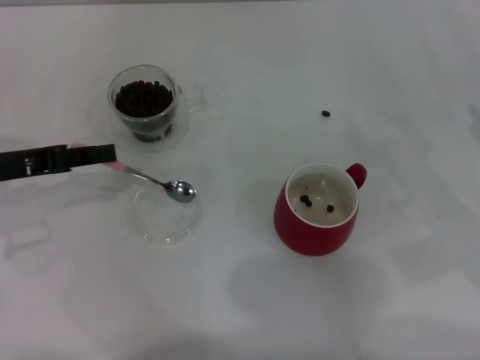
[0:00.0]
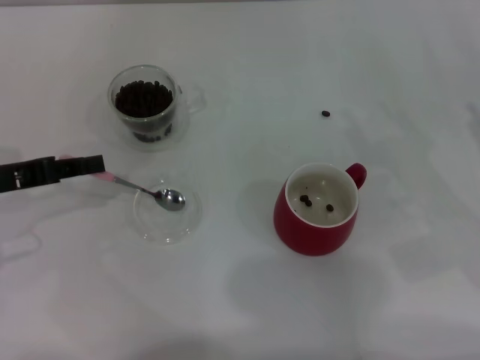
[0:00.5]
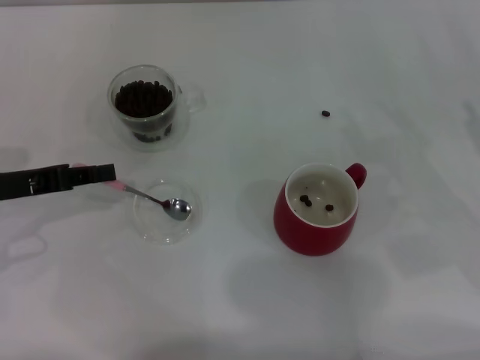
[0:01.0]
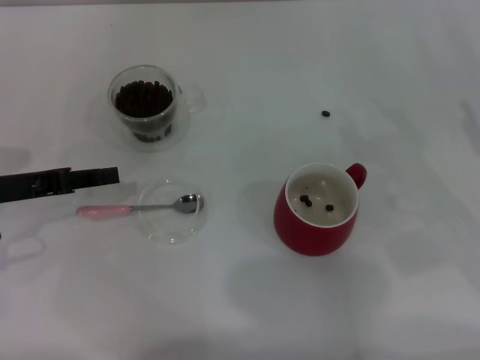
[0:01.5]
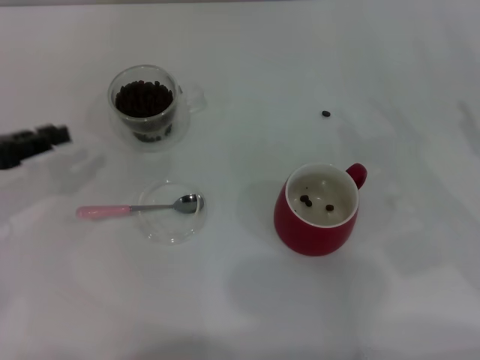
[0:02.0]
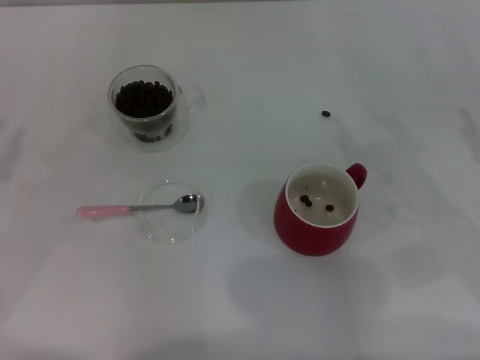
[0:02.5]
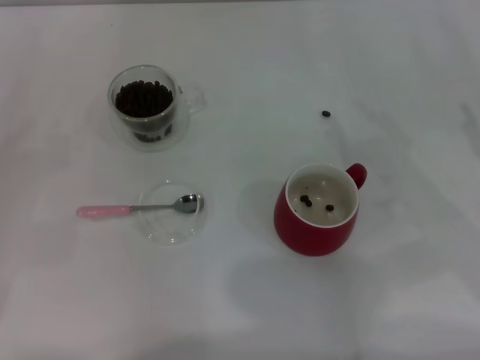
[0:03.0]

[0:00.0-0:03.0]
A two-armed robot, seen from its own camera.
Task of the whole recording: Use a pink spoon to take out the coffee beans from the glass and pour them into the red cup.
0:00.0 to 0:01.5: The grippers make only small movements.
0:01.5 to 0:03.0: The left gripper travels to the left and backward by some 10 cm.

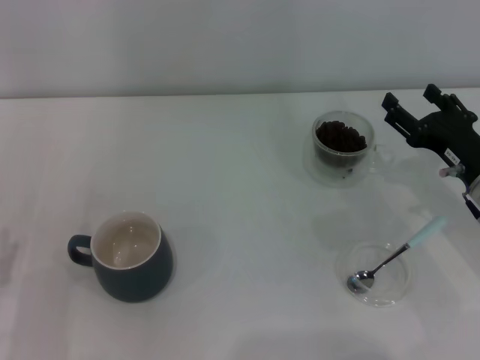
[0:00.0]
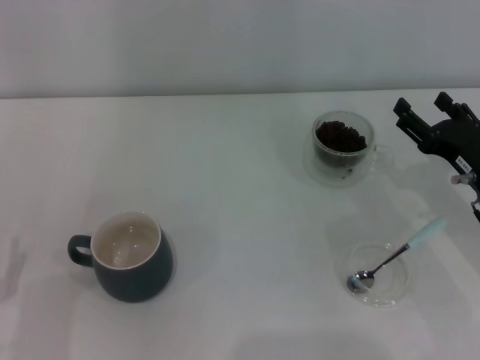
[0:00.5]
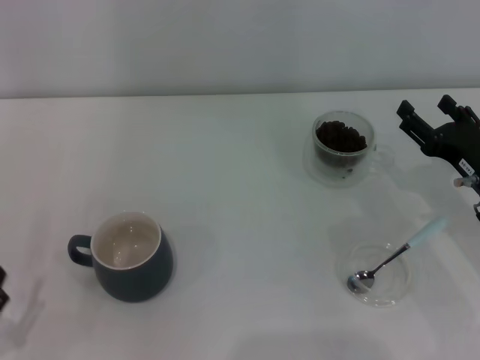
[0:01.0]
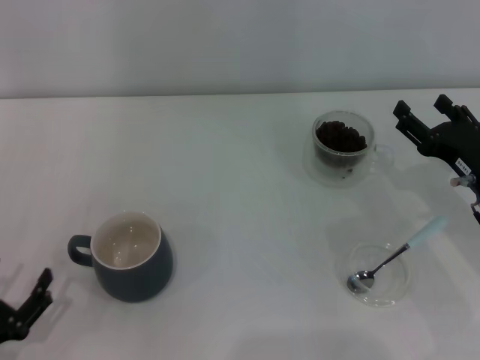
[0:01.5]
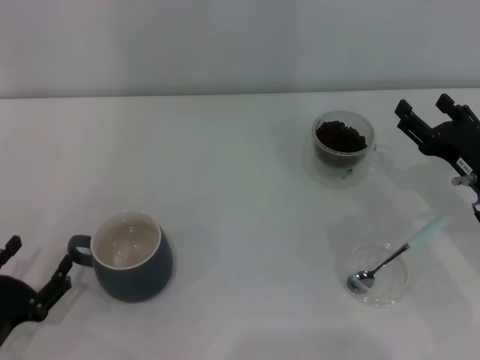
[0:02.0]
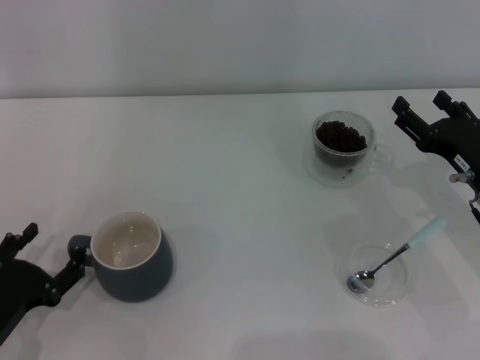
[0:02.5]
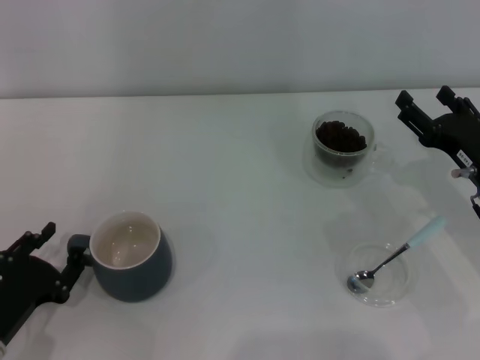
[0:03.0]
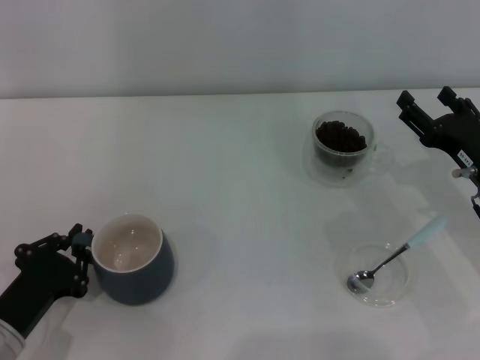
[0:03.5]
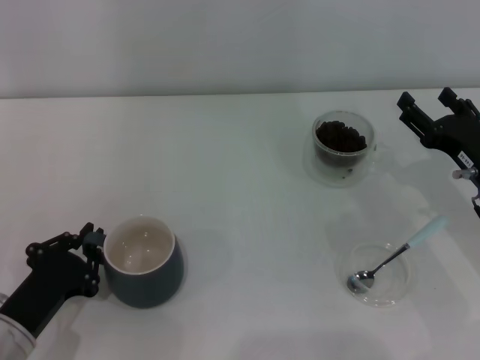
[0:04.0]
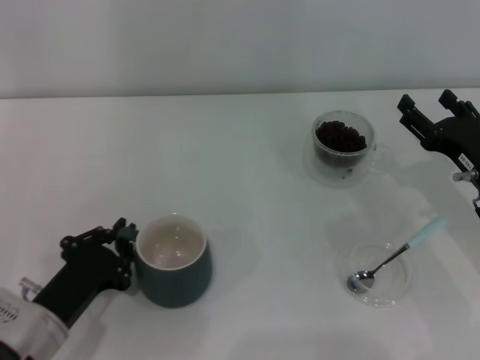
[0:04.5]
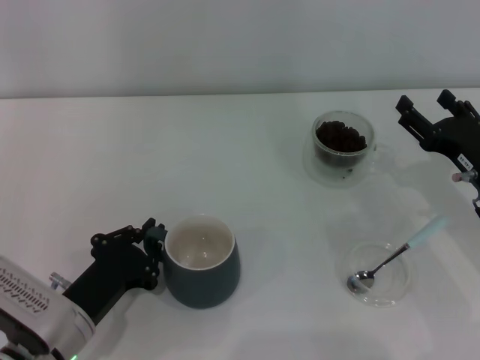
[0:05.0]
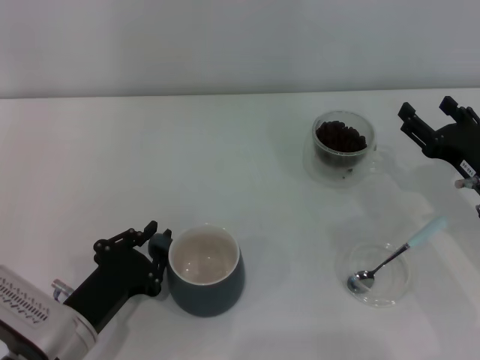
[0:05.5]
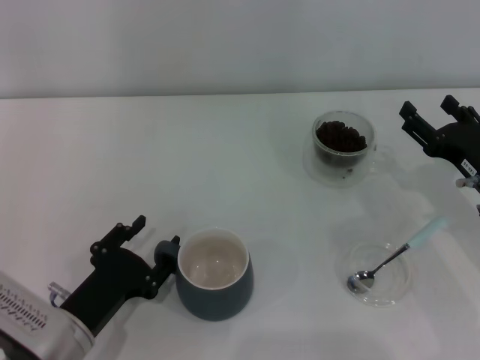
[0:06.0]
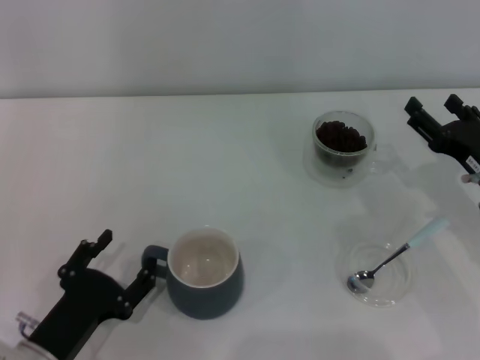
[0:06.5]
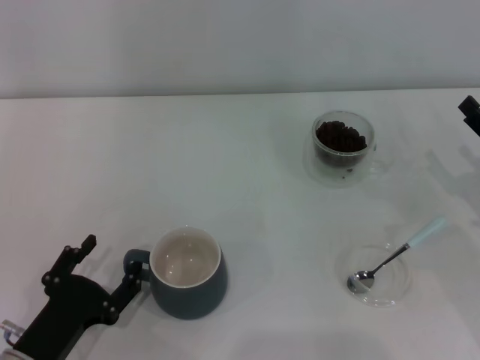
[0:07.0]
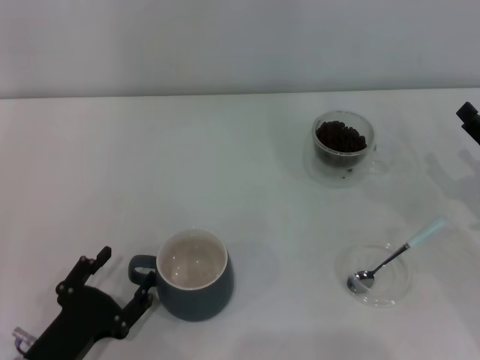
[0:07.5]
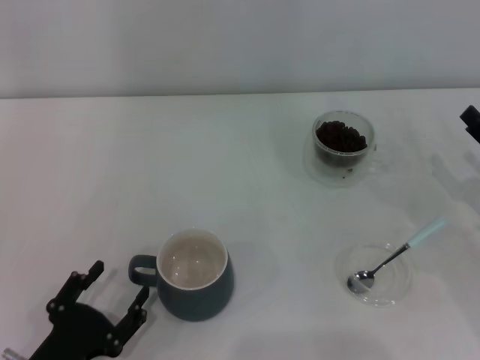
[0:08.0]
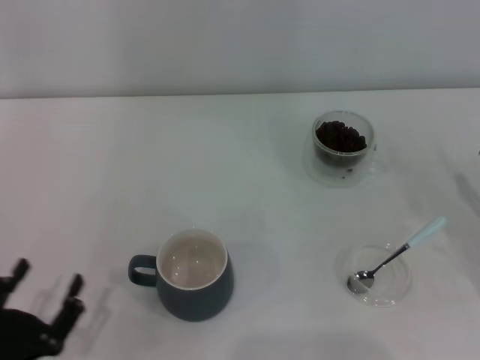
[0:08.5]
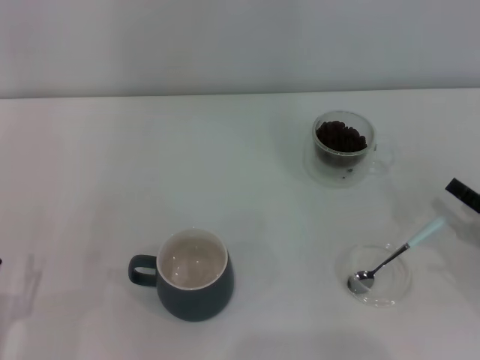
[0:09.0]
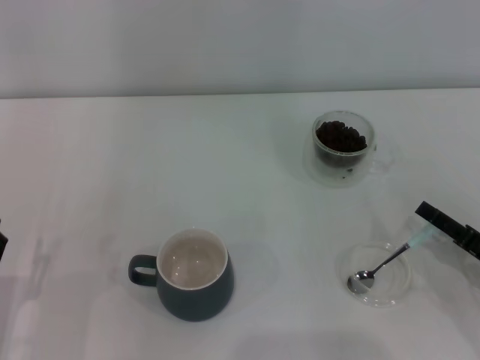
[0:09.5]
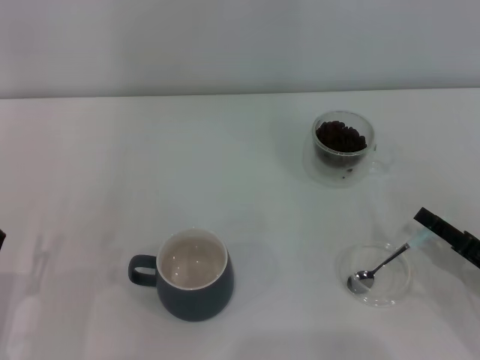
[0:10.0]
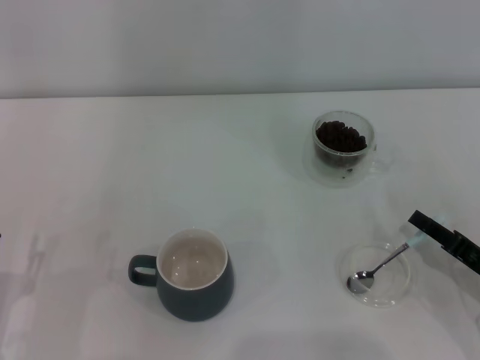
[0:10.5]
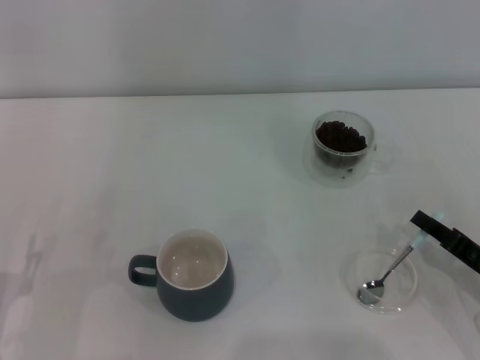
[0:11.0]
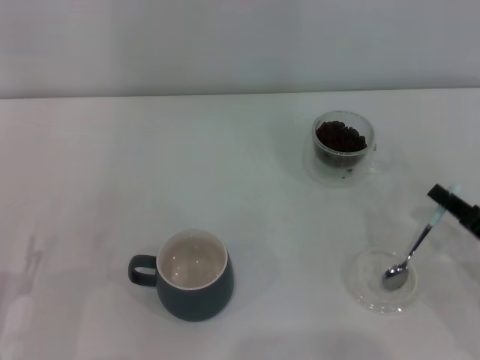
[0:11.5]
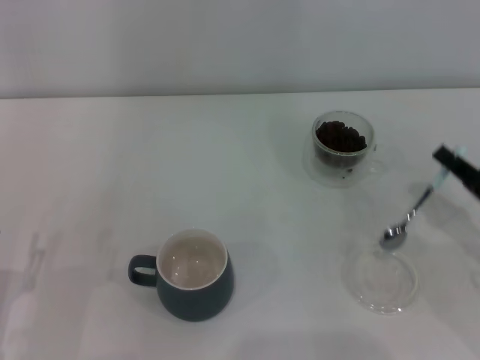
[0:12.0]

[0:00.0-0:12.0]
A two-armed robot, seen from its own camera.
Task of the whole recording: Use a blue spoon to take out the coffee beans from the glass and pour them into the gray cup.
Step, 0:00.0 to 0:08.0: Move the cup to the center of view with the left gripper.
Step, 0:08.5 to 0:11.5: Pick up the spoon with the right gripper.
0:02.0 to 0:04.0: The left gripper moves about 5 cm, and closes.
0:04.0 to 0:06.0: The left gripper is displaced to the right by about 5 cm, and opens up.
0:06.0 to 0:08.0: The right gripper moves to the right, about 5 cm. The left gripper moves backward, about 5 cm, and opens.
0:08.0 to 0:10.0: The left gripper shifts roughly 5 cm to the left; the right gripper travels backward by some 5 cm.
0:10.0 to 0:12.0: The right gripper moves some 5 cm, and closes its fingers.

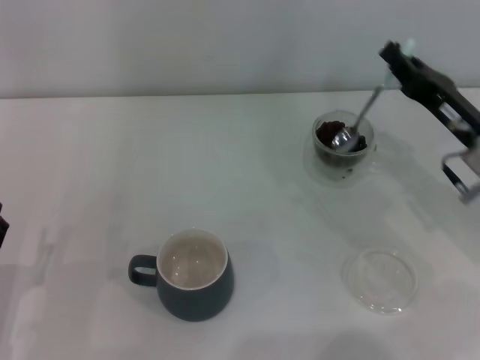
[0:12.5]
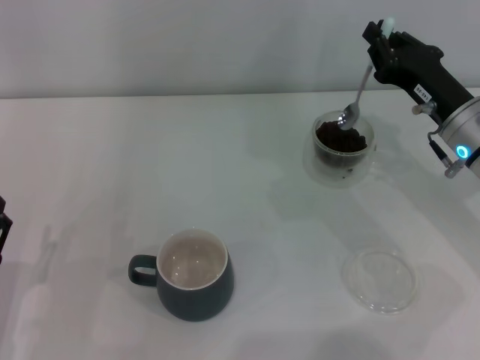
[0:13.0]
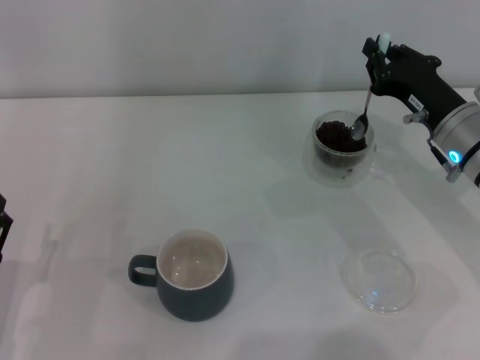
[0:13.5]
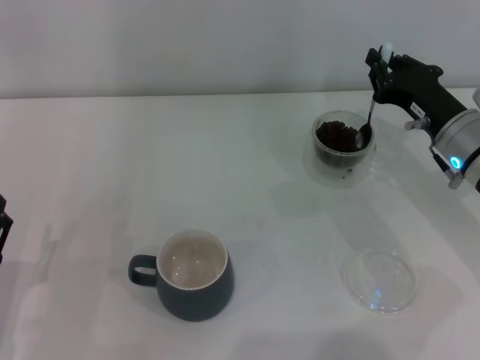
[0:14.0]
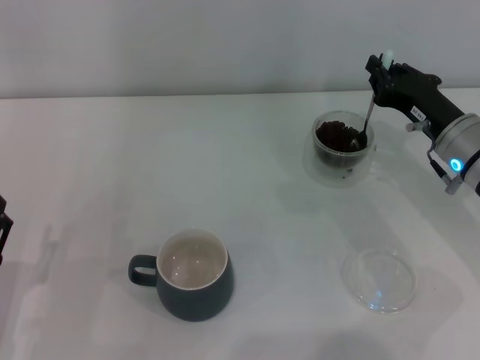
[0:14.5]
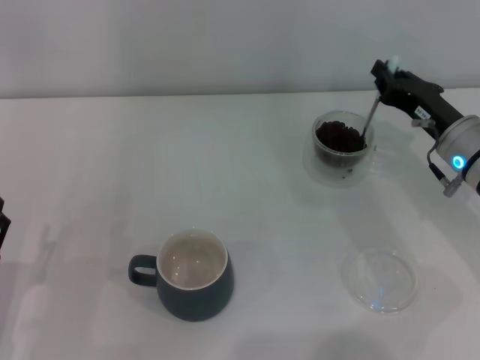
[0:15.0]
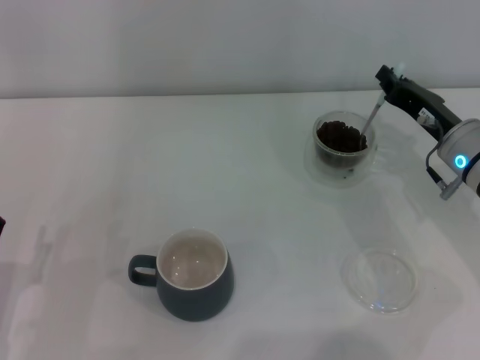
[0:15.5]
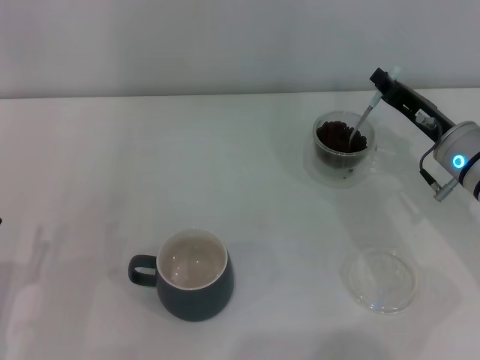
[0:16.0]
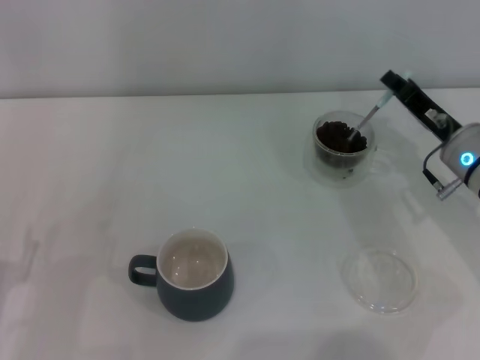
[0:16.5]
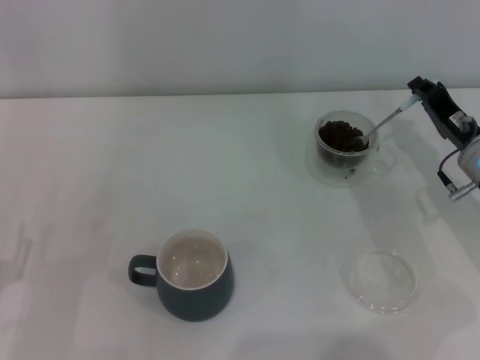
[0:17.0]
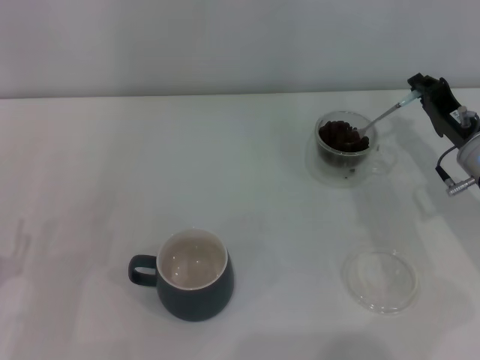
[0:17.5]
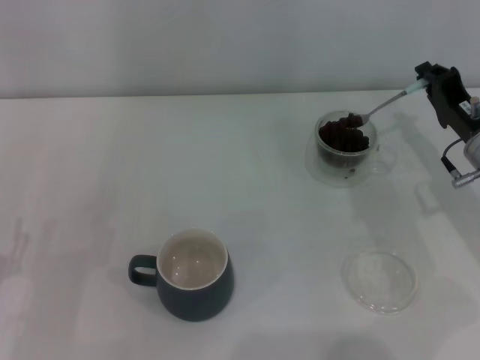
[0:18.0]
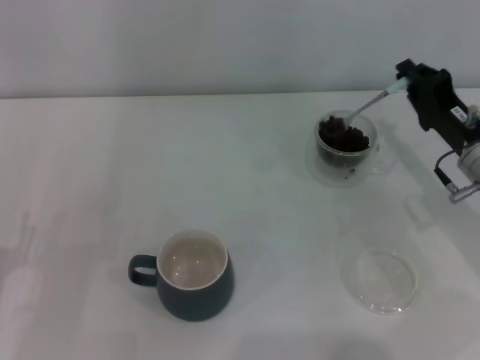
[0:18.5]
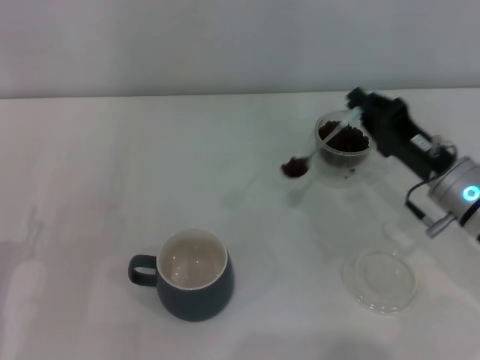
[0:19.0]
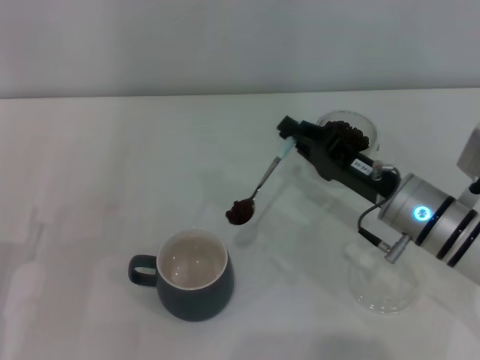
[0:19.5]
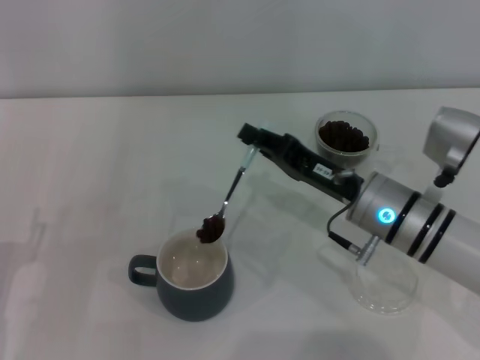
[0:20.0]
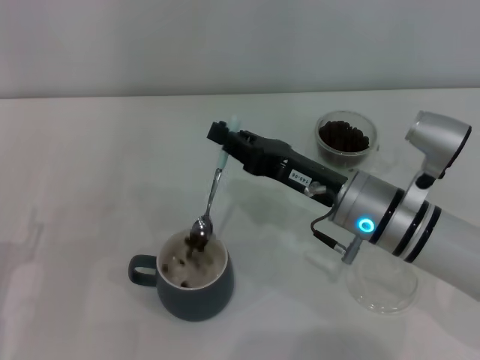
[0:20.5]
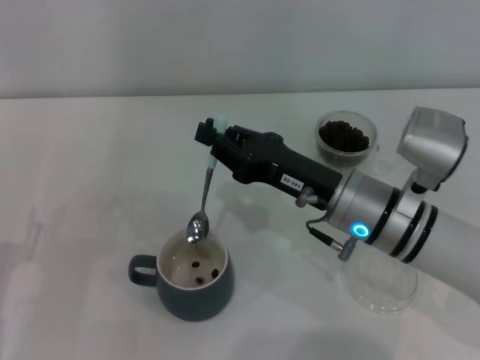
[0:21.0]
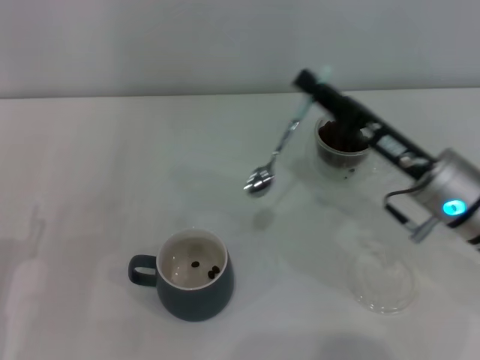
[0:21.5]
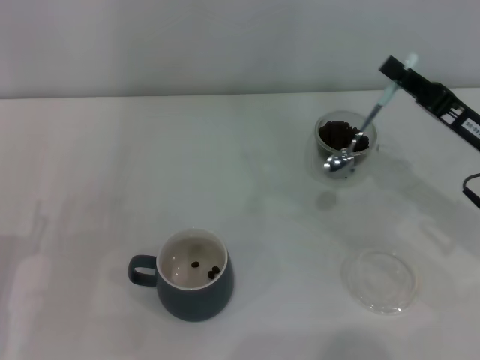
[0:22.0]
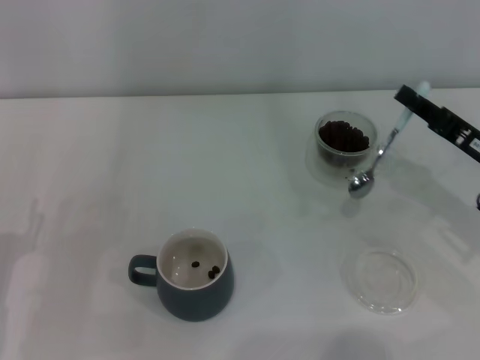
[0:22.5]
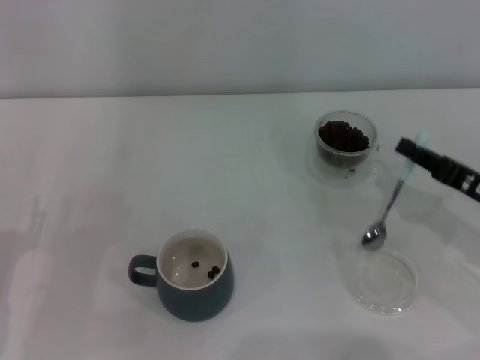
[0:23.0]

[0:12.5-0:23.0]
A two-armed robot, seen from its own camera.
Task of the whole recording: Use a blue spoon to take out the coffee beans from the glass and pour them into the gray cup.
Step, 0:12.5 to 0:20.5: Scoop a spoonful of beans into the cup with the right gripper.
0:19.0 to 0:21.0: The right gripper is displaced to the left by about 10 cm.
0:21.0 to 0:23.0: The right gripper goes approximately 20 cm to the right.
